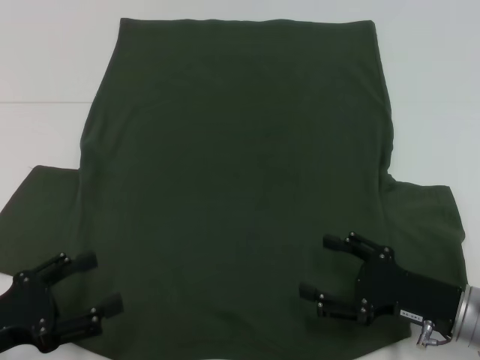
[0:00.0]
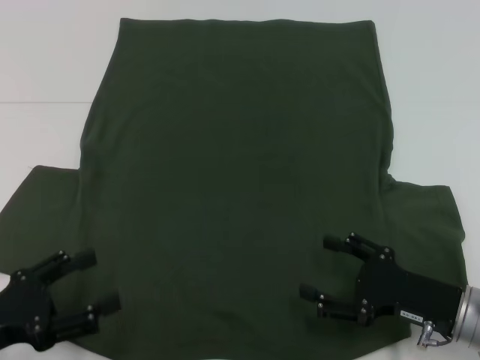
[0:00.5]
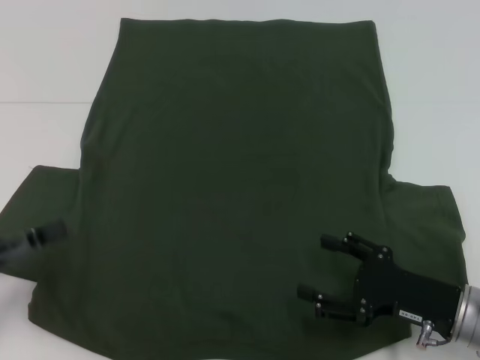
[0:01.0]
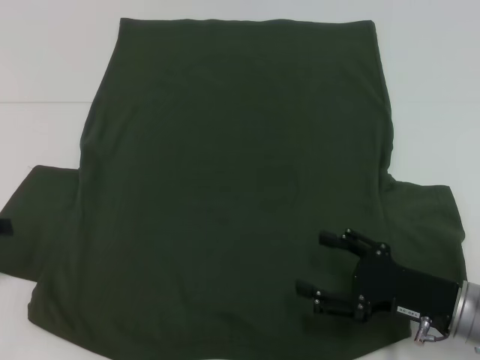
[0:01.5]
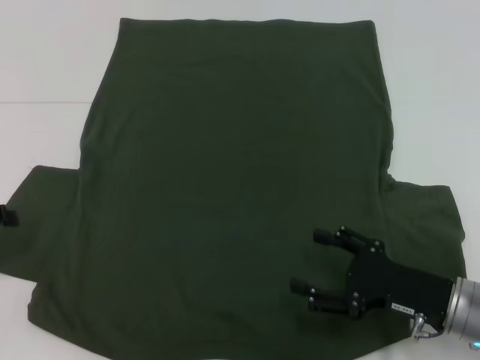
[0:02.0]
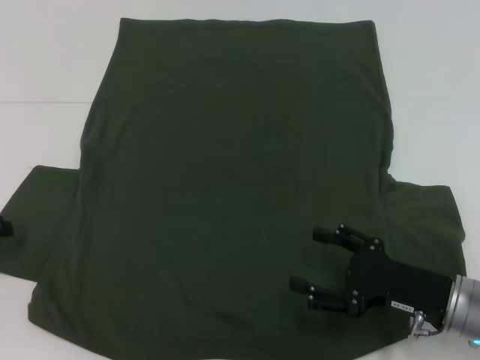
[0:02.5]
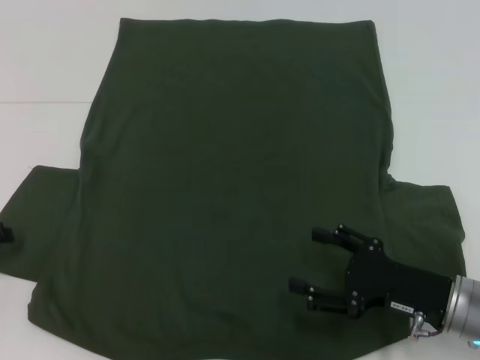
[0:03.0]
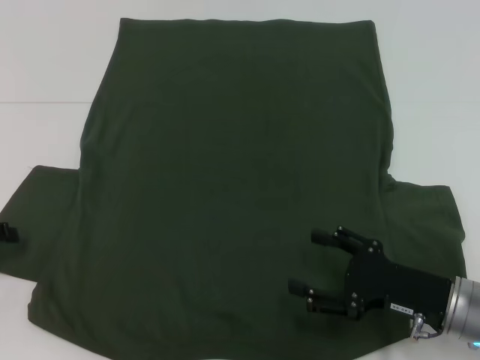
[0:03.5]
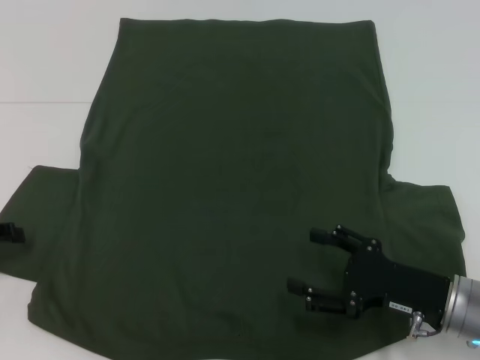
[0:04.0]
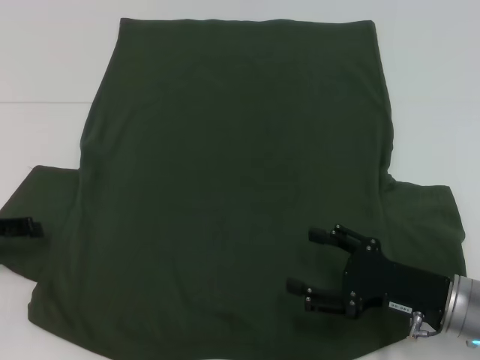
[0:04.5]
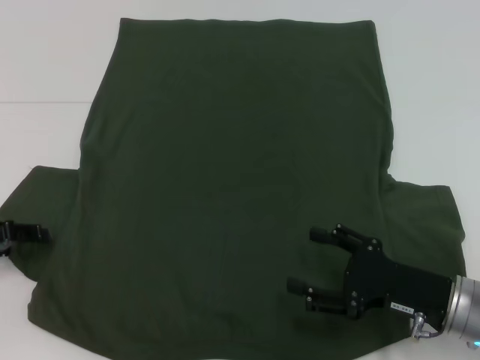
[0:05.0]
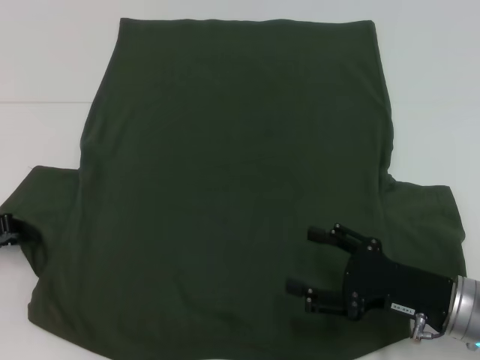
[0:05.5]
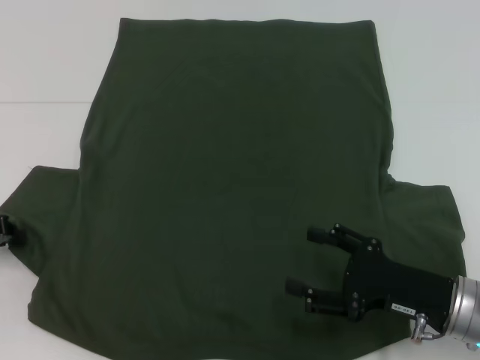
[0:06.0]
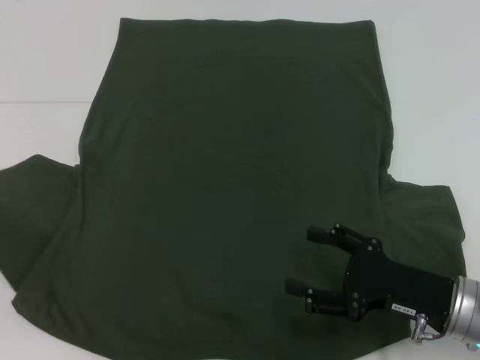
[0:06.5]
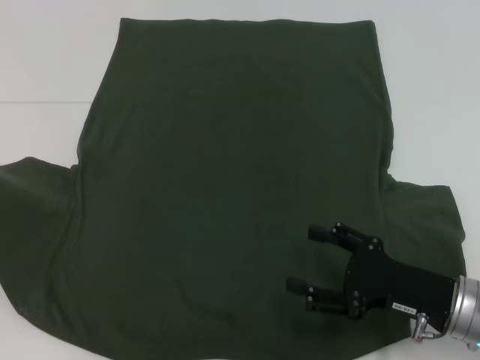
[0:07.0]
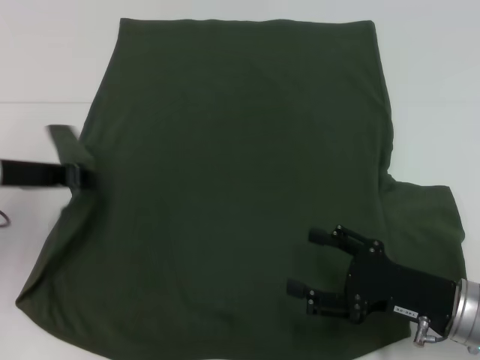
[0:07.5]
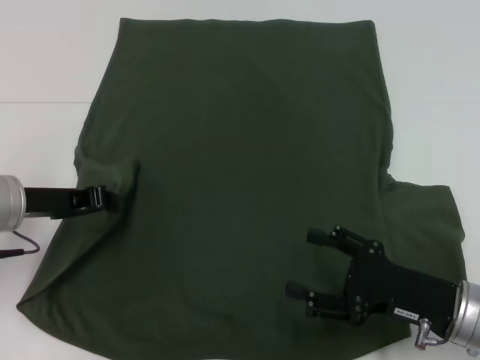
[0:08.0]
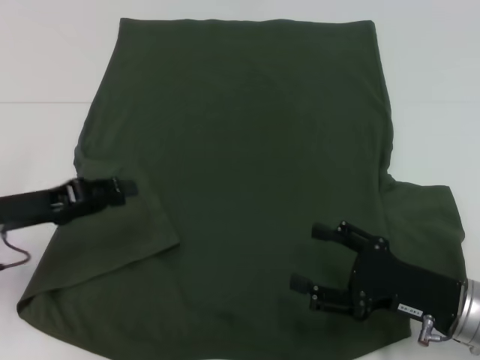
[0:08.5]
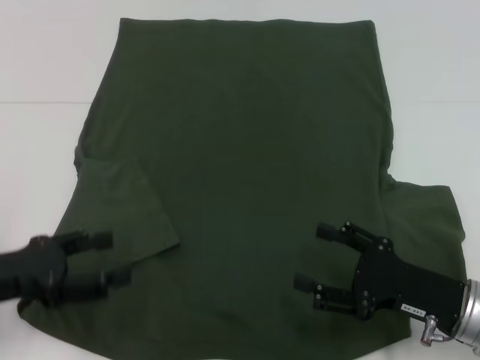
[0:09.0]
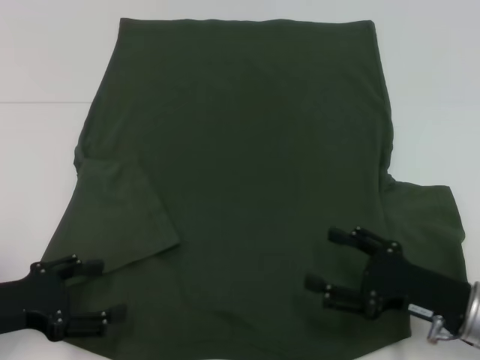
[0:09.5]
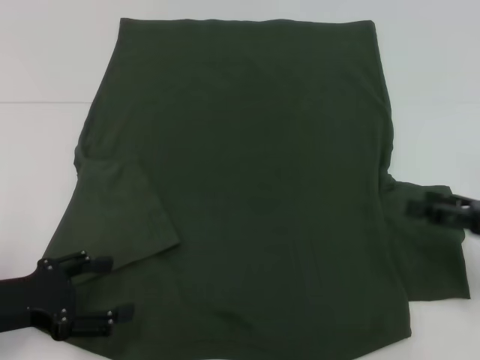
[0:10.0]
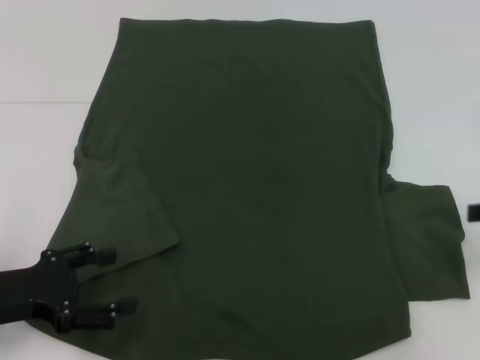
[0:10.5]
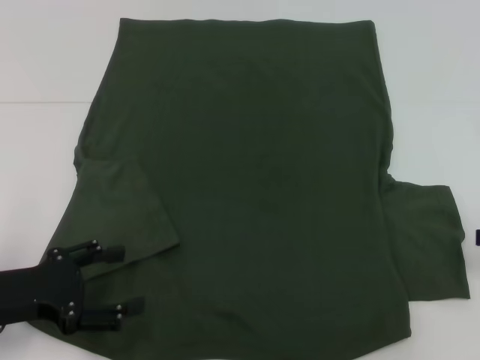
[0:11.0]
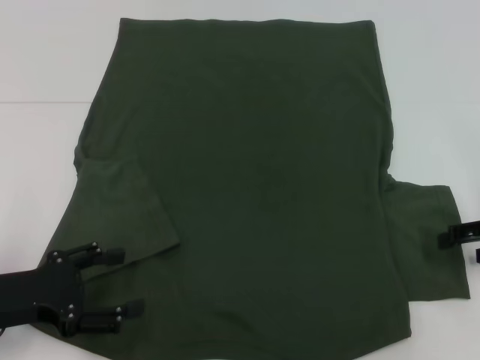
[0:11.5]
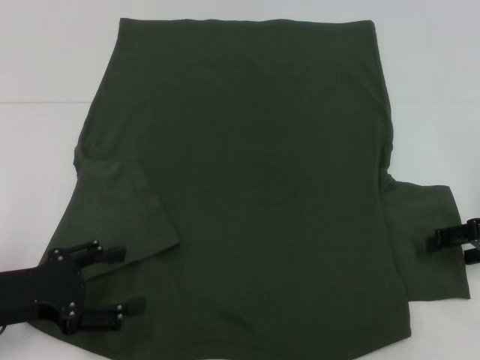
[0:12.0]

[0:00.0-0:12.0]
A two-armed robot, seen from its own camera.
Step, 0:00.0 to 0:08.5: Fold the bottom left sleeve with your left hand.
0:00.0 to 0:02.0: The left gripper moves forward, to the left and upward, approximately 15 cm.
0:02.0 to 0:04.0: The grippers stay close to where they were, moving slightly.
0:06.0 to 0:08.0: The left gripper is displaced to the right by about 10 cm.
0:08.0 to 0:10.0: The right gripper shifts approximately 15 cm to the right and upward. Meanwhile the left gripper shifts some 10 cm backward, and opens up.
0:10.0 to 0:12.0: The right gripper heads forward, covering roughly 5 cm.

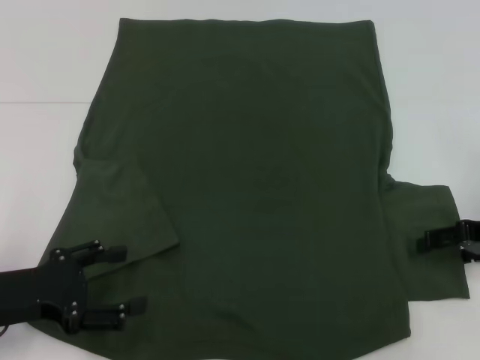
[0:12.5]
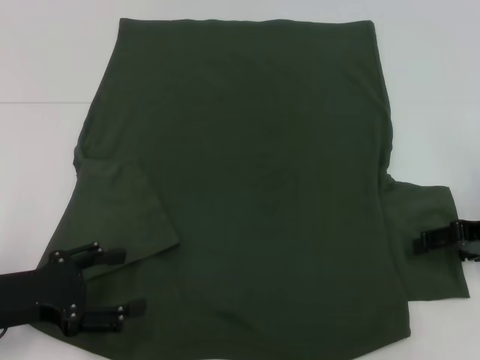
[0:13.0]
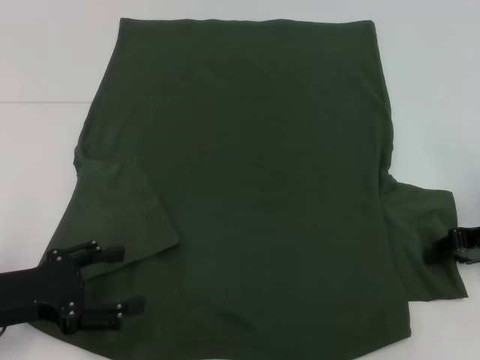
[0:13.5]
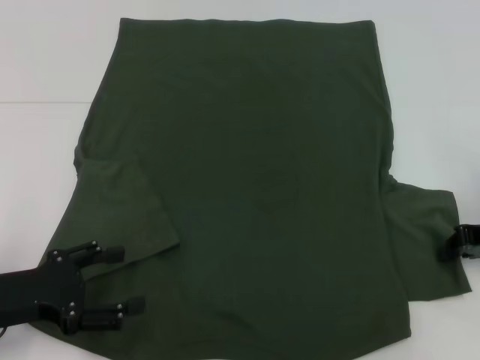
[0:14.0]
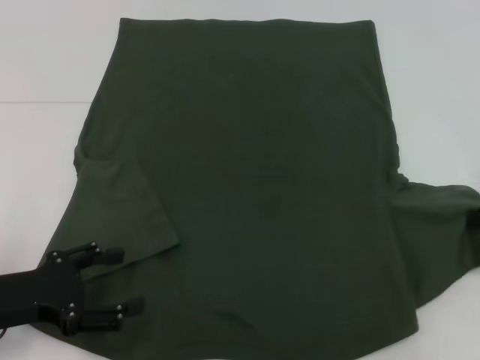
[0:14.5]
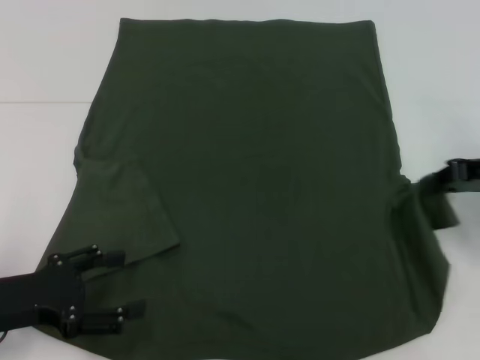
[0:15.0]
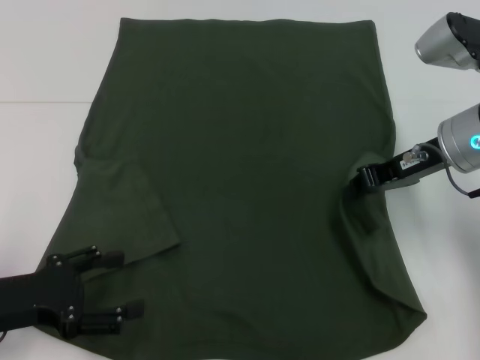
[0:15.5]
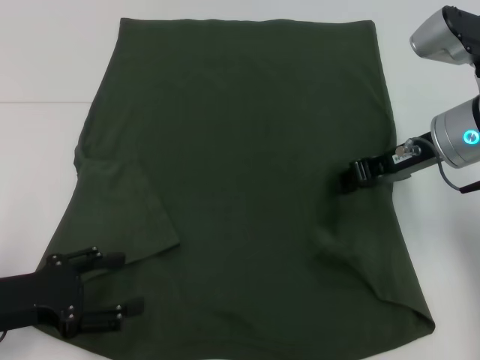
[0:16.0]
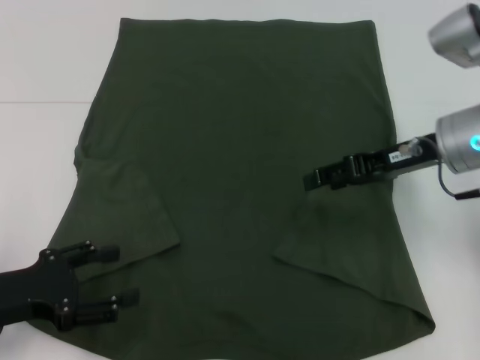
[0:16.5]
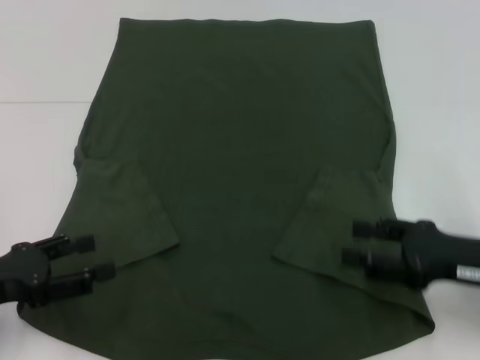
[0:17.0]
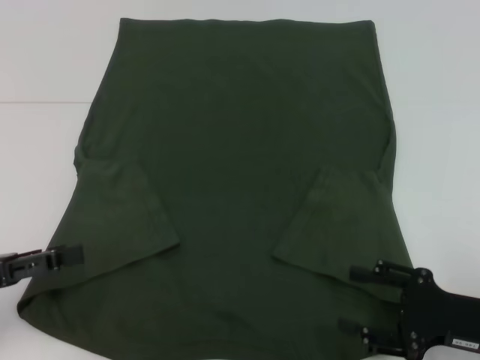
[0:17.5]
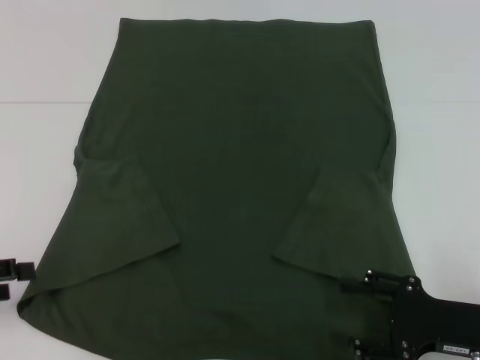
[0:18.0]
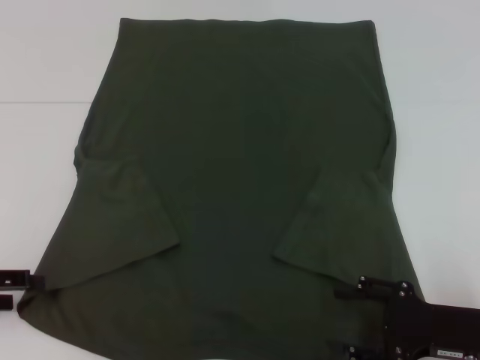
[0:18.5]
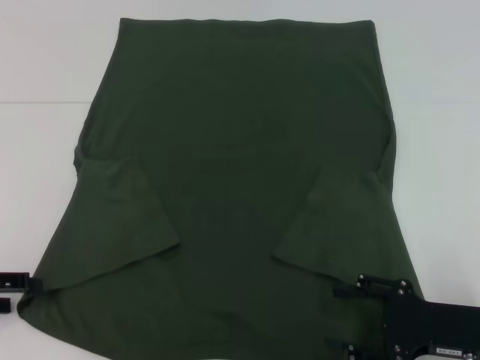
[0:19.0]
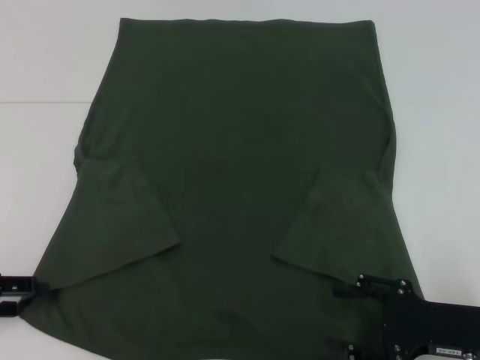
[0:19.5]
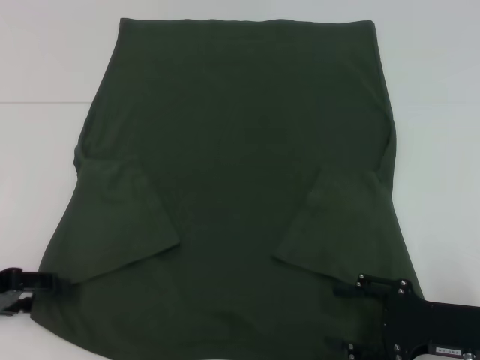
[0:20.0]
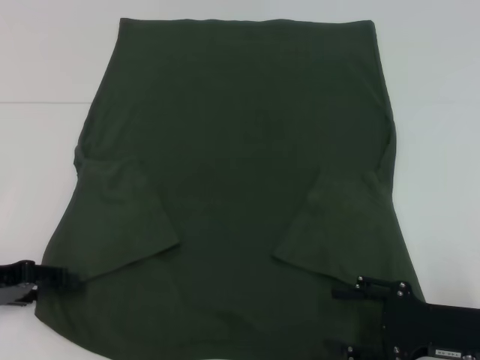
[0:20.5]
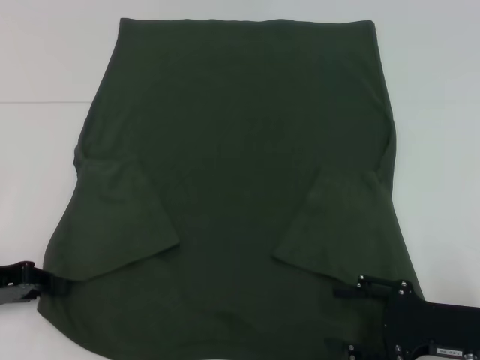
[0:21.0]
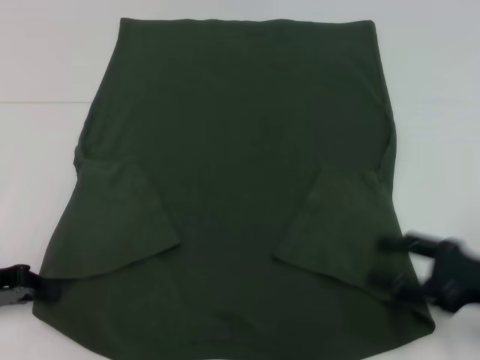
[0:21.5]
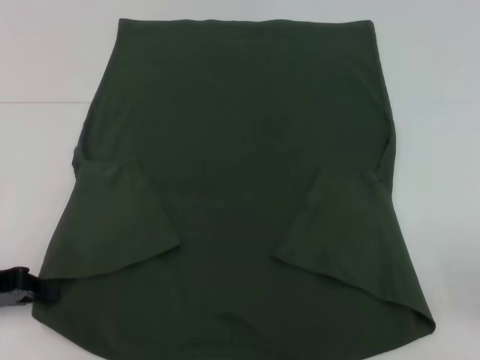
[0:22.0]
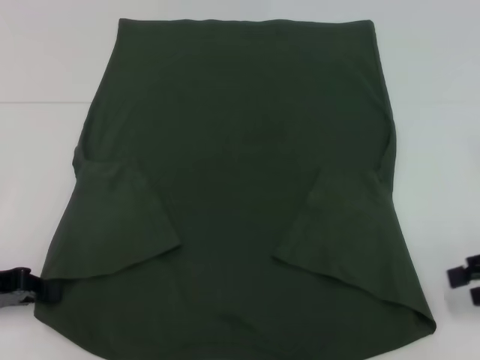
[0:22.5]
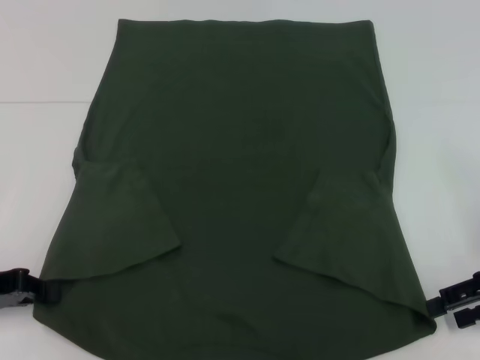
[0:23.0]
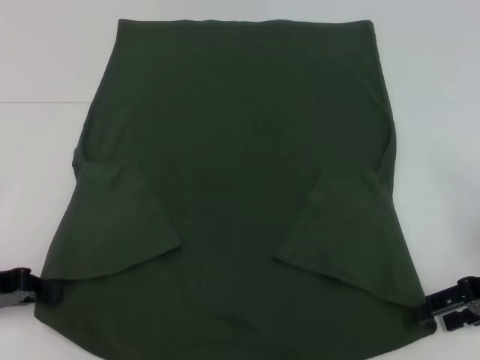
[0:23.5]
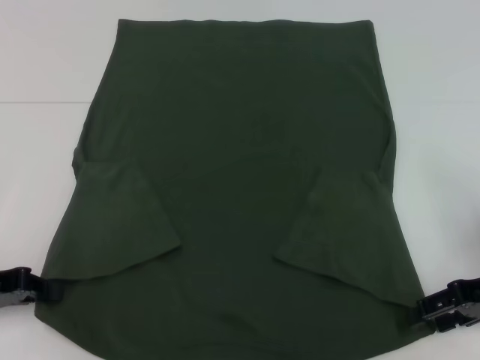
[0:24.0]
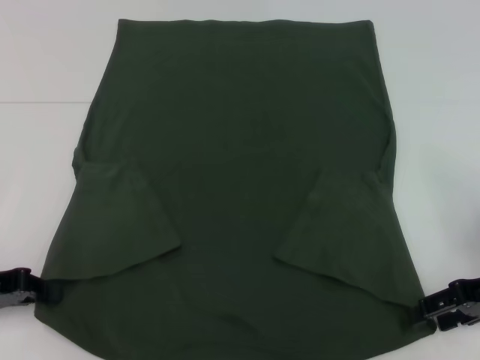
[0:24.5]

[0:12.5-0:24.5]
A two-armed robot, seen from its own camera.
Step, 0:12.5 to 0:16.5: Fold the bottom right sleeve with your right hand.
Step, 0:17.0 to 0:21.0: Grab the bottom left corner with your left hand.
0:12.5 to 0:14.5: The right gripper closes up.
0:14.5 to 0:16.5: The right gripper is displaced to the left by roughly 15 cm, and opens its fingers.
0:16.5 to 0:18.5: The right gripper is displaced backward and downward by about 20 cm. The left gripper heads to the left, covering roughly 5 cm.
0:18.5 to 0:20.5: The grippers stay close to where they were, moving slightly.
0:20.5 to 0:22.5: The left gripper closes its fingers; the right gripper moves upward, to the right and forward, approximately 15 cm.
0:22.5 to 0:24.5: The right gripper changes place by some 5 cm.

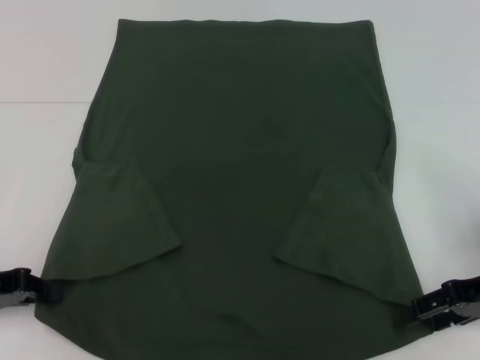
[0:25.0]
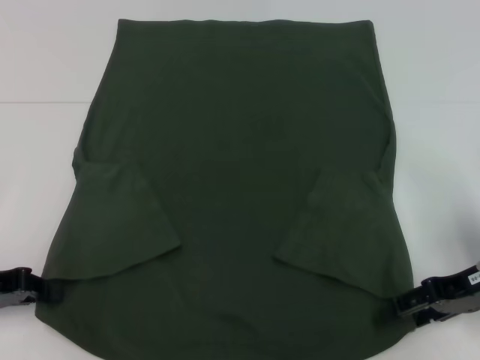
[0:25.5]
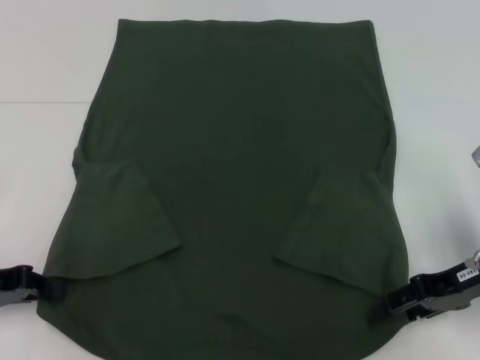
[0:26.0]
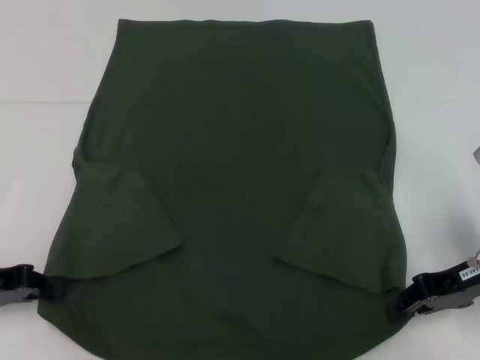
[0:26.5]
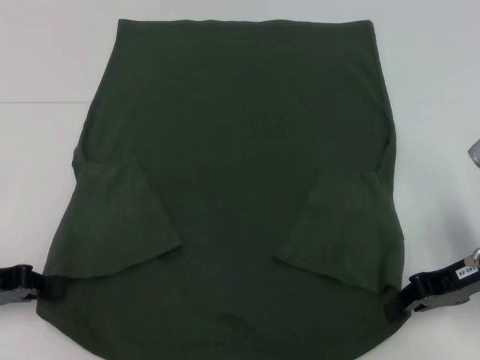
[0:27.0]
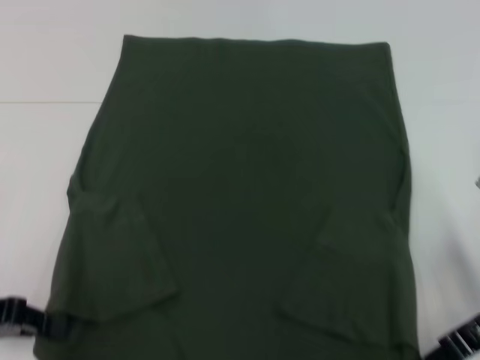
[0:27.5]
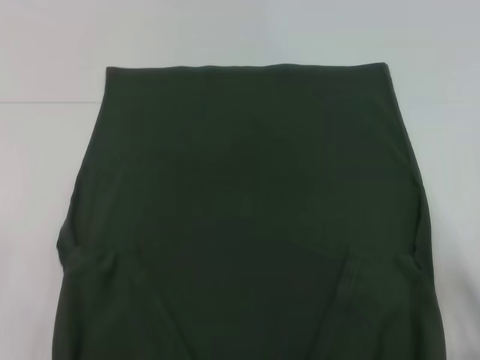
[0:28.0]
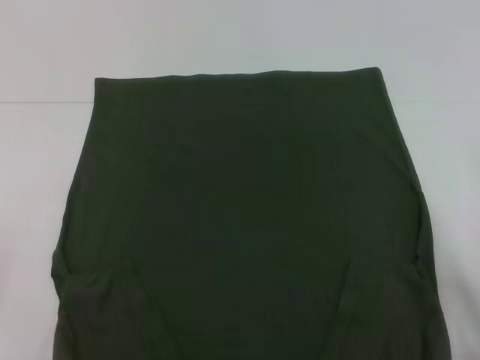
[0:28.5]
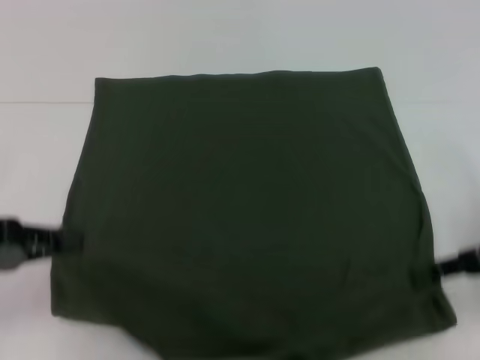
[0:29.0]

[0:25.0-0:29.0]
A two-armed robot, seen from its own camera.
0:25.0 to 0:27.0: The right gripper closes.
0:27.0 to 0:29.0: The right gripper changes place by roughly 5 cm.
